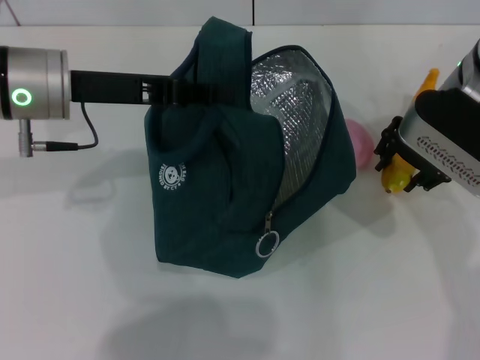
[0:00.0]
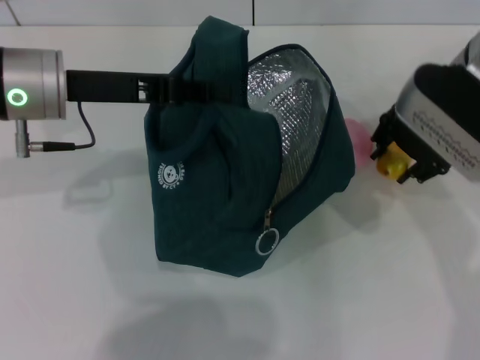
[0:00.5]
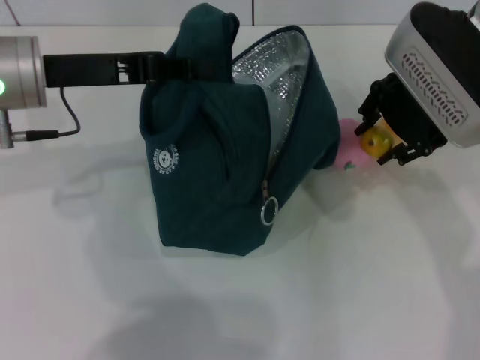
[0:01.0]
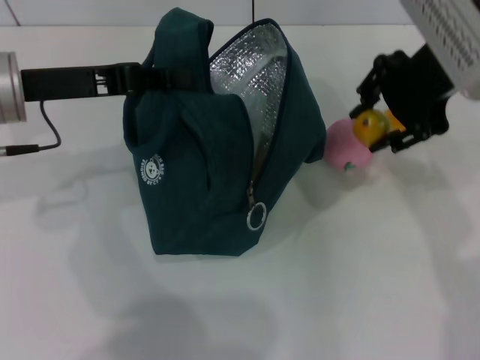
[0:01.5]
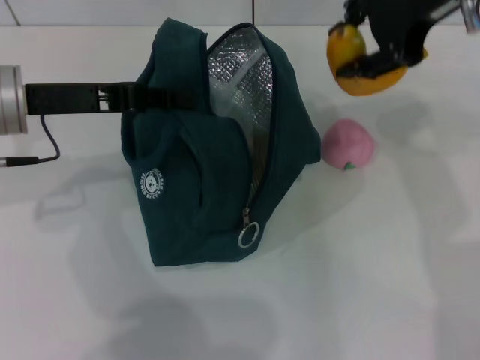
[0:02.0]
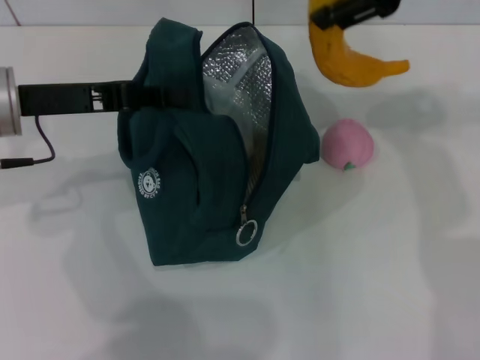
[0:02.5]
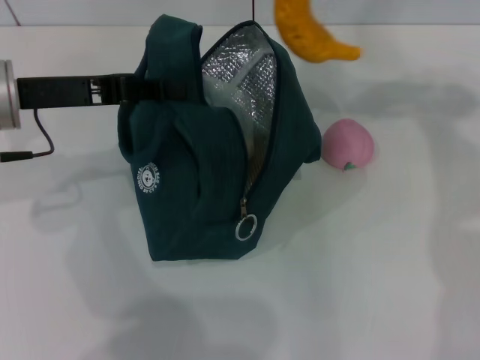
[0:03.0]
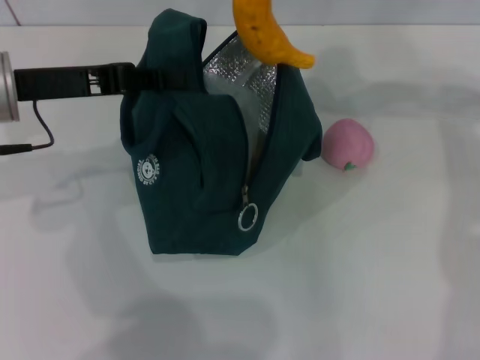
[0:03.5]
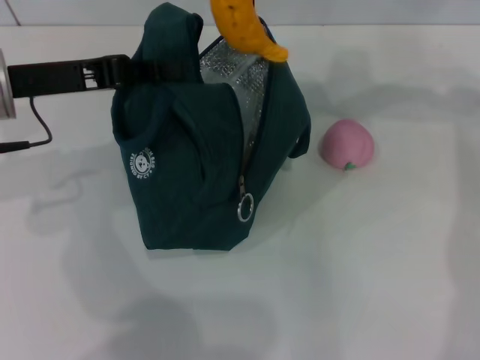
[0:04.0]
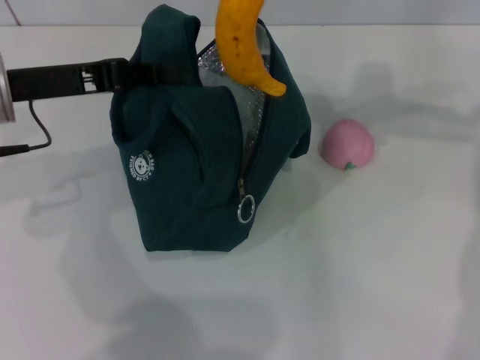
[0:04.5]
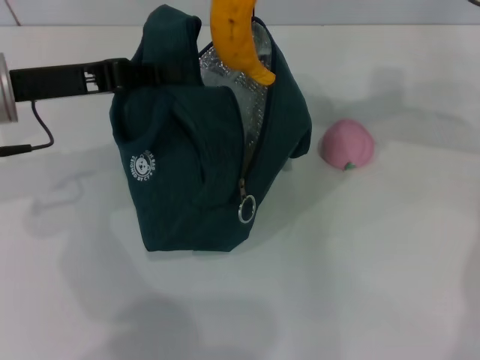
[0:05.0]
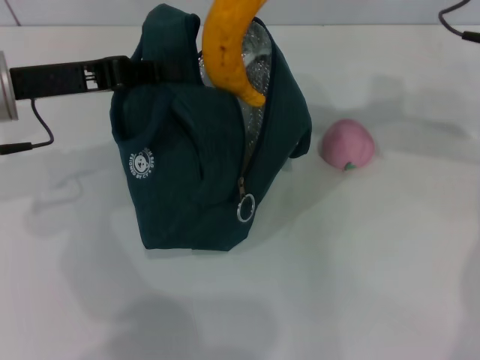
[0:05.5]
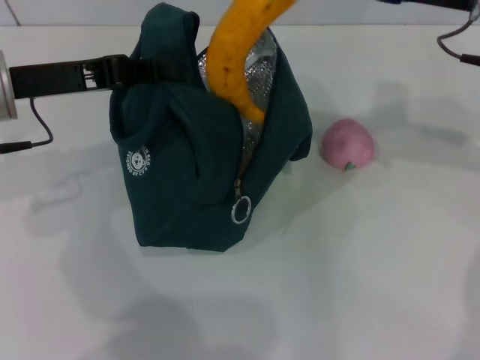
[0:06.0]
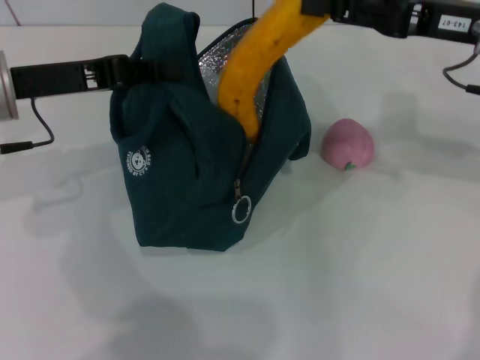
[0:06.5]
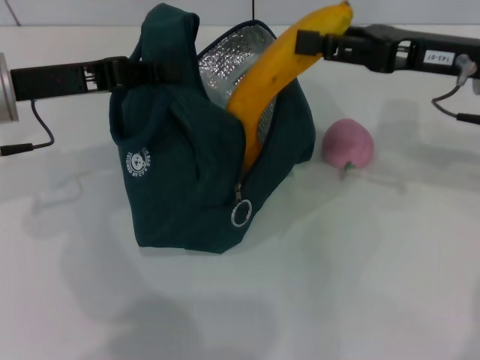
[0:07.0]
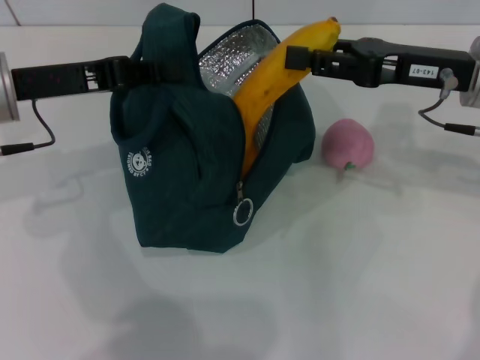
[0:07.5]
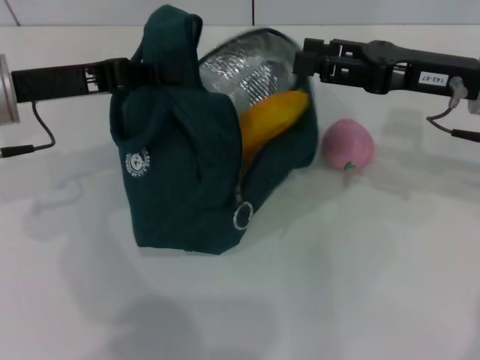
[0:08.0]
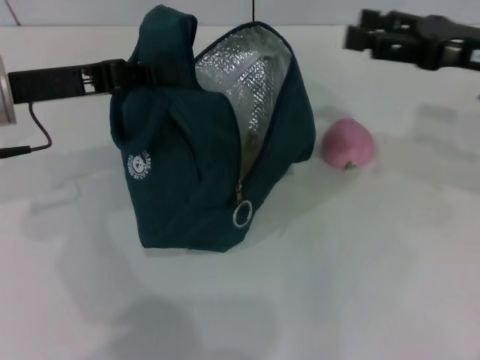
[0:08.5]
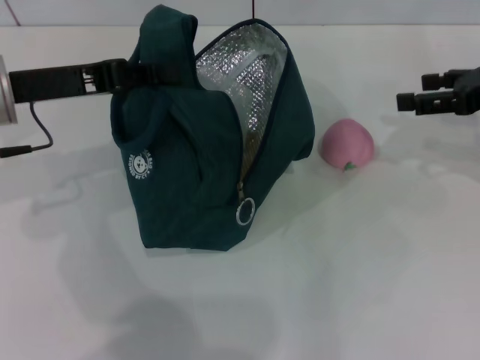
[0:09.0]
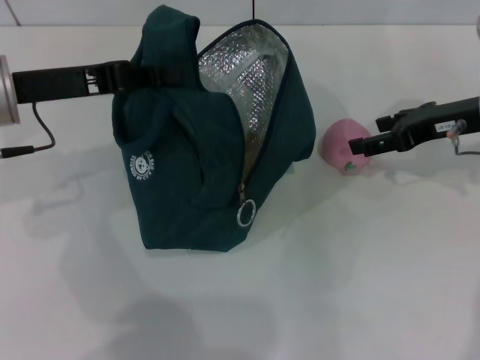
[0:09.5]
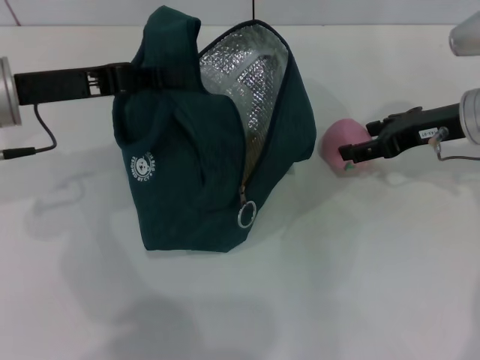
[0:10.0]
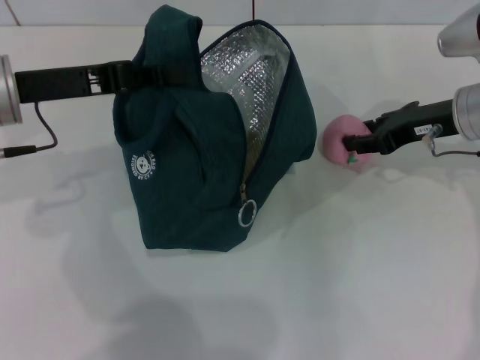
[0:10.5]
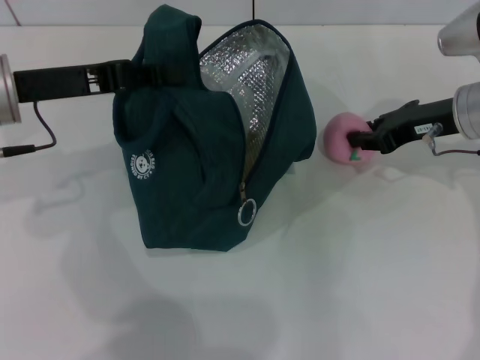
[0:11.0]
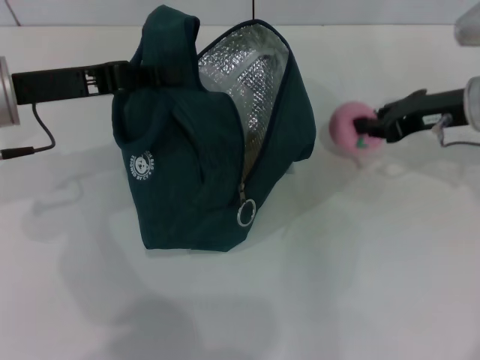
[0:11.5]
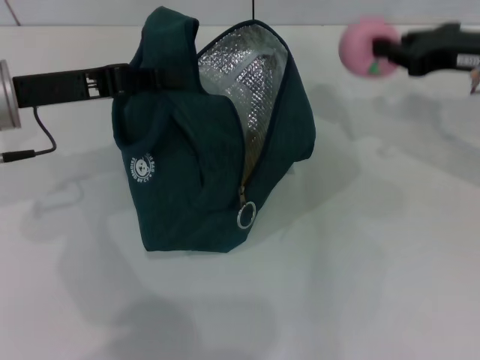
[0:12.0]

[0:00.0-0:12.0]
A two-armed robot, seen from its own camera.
Step, 0:00.0 to 0:08.0: Put the banana into the lunch bag with your right hand.
Step, 0:08.5 to 0:11.0: Grab the peach with your right hand.
0:00.0 to 0:02.0: The right gripper travels upward by about 15 cm.
0:04.0 to 0:06.0: The right gripper travels downward by approximately 10 cm.
0:06.0 to 0:08.0: The right gripper goes roughly 5 cm downward.
0:08.0 to 0:10.0: The right gripper goes to the right and returns, approximately 10 cm each way.
0:10.0 to 0:12.0: The right gripper heads upward, covering some 5 cm, and closes its fingers.

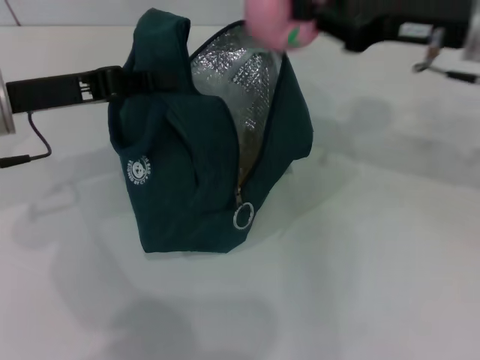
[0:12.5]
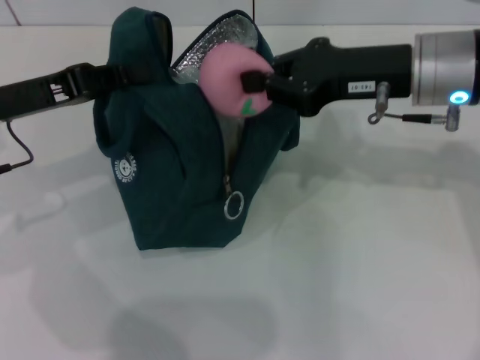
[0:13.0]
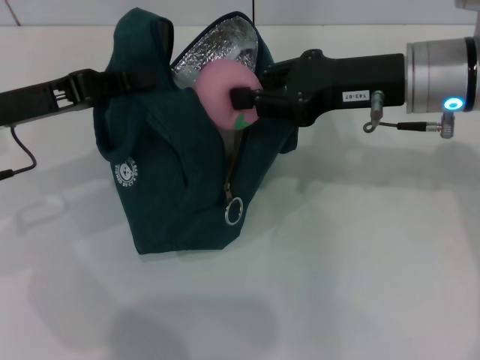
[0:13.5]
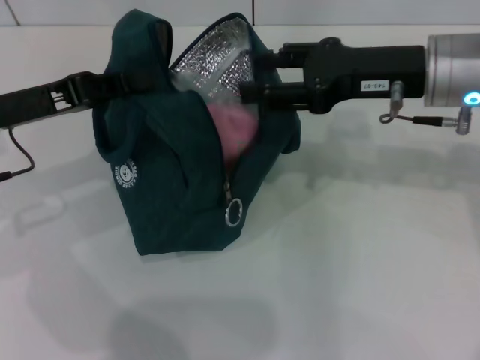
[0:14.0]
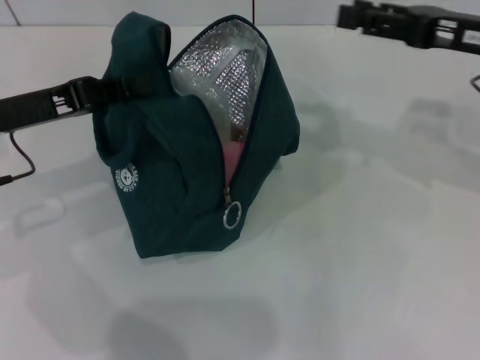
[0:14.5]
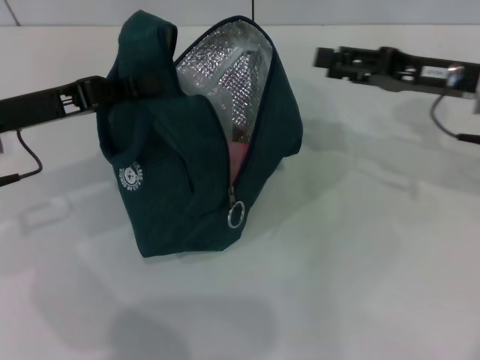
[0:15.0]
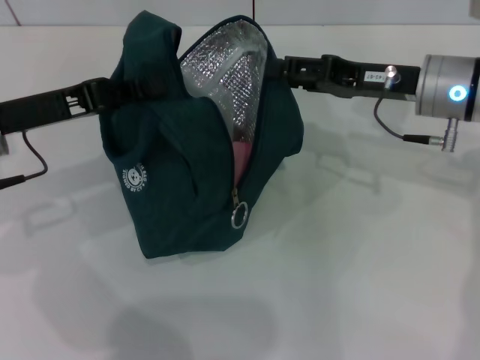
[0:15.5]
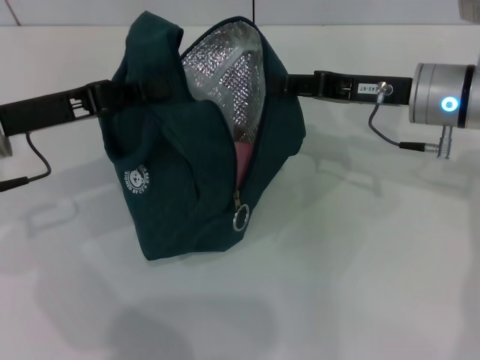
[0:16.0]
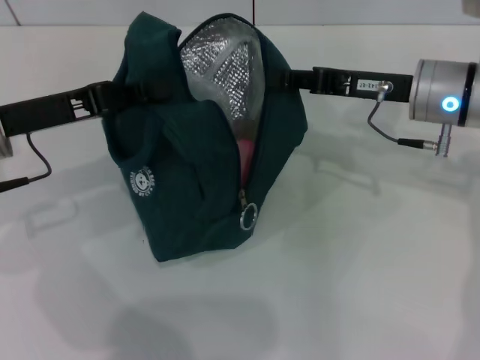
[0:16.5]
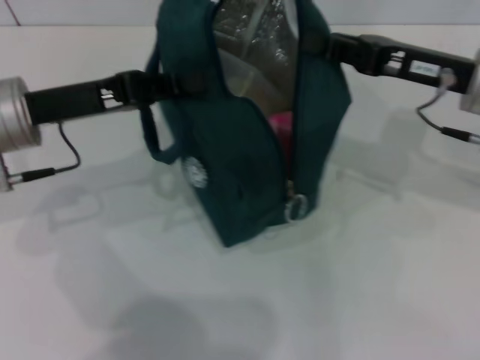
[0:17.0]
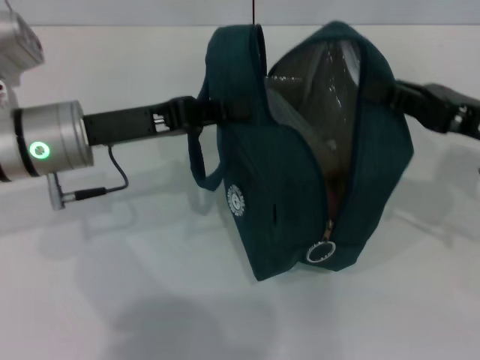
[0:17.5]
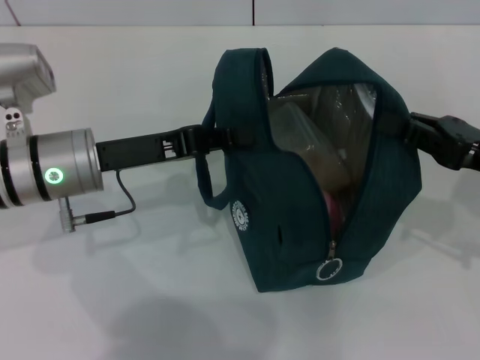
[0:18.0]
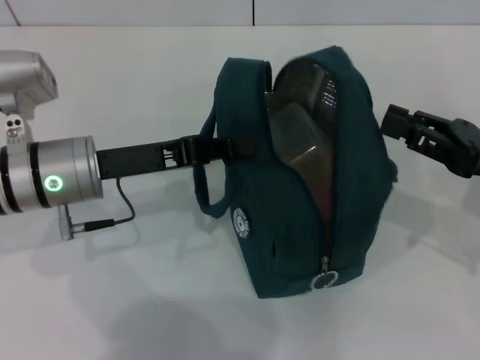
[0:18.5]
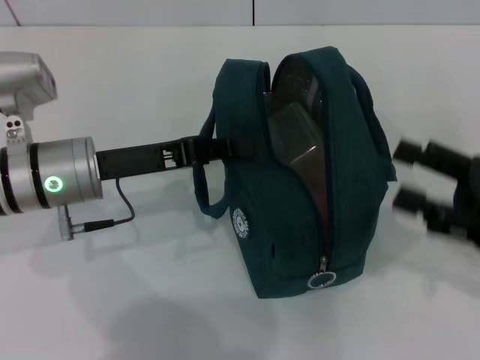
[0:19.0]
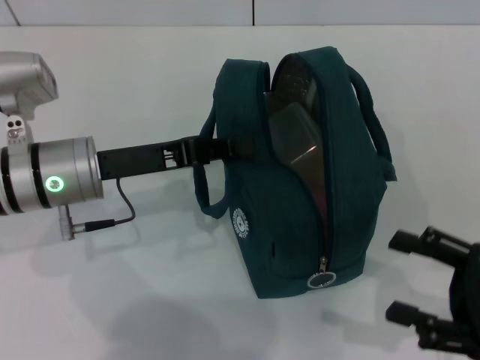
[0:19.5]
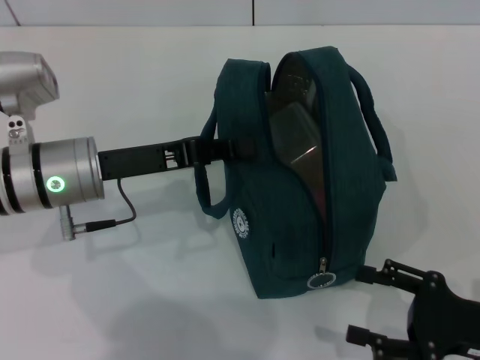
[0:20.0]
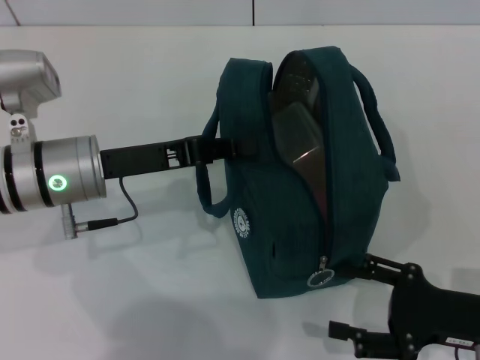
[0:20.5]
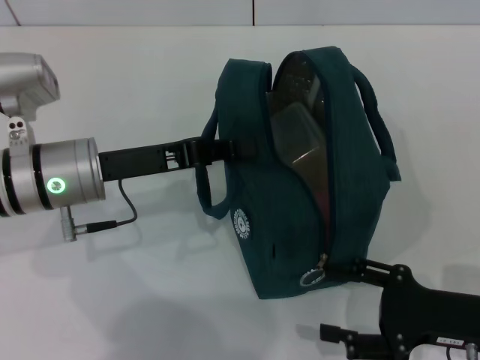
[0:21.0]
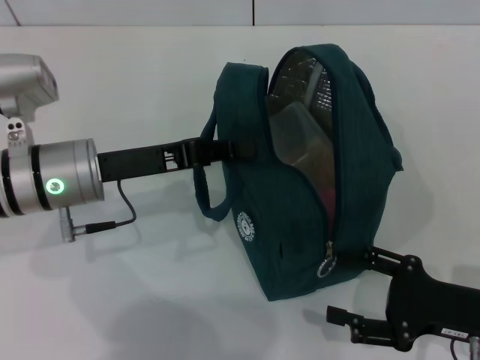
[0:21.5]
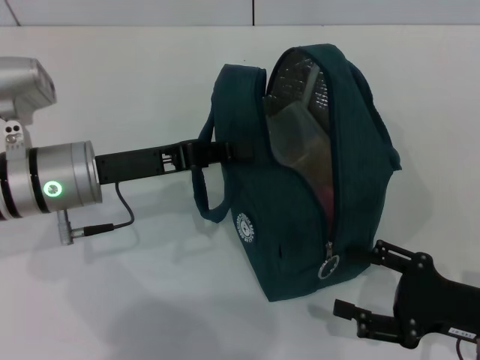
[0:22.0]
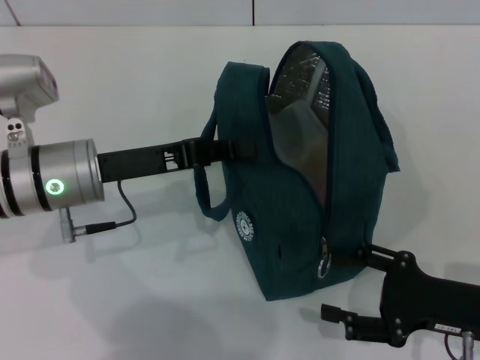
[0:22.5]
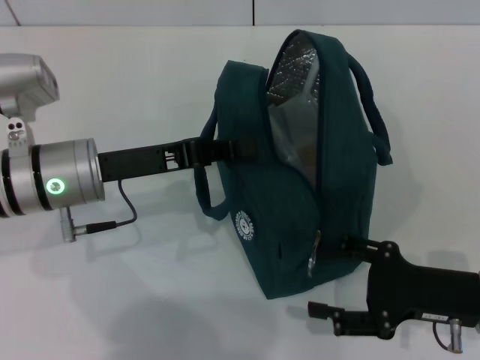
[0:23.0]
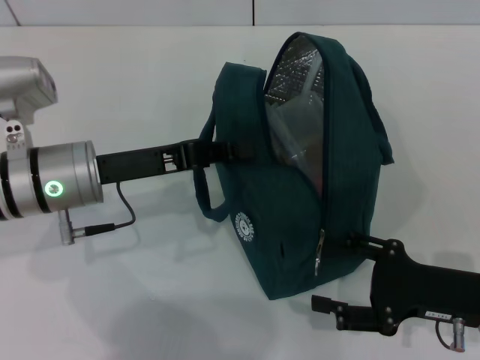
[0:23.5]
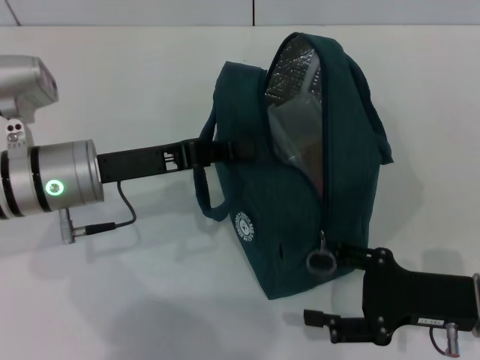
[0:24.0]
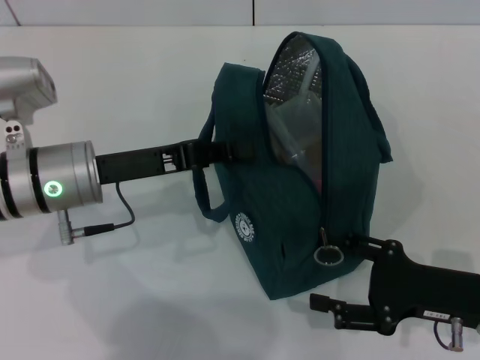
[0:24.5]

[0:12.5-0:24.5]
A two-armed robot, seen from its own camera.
Step, 0:12.5 to 0:14.0: Secure the lunch bag with your left hand.
Step, 0:14.5 to 0:18.5: Hold the lunch bag with your right hand.
0:12.5 to 0:14.5: The right gripper moves roughly 5 cm, and opens.
0:14.5 to 0:16.5: The right gripper shifts some 10 cm to the left and downward, and closes up.
0:16.5 to 0:18.5: The left gripper shifts approximately 5 cm to the right; the right gripper shifts some 15 cm backward and to the right.
0:18.5 to 0:20.5: The right gripper heads downward and backward, covering some 10 cm, and opens.
0:20.5 to 0:24.5: The grippers make only small movements.

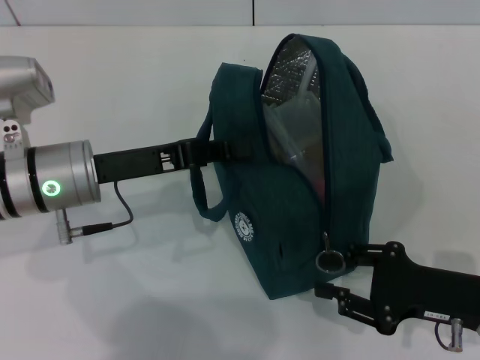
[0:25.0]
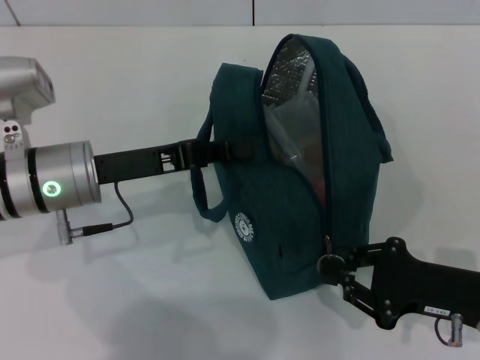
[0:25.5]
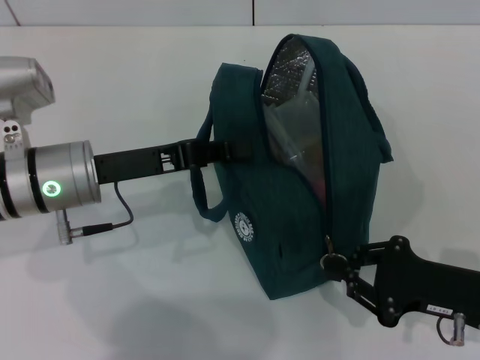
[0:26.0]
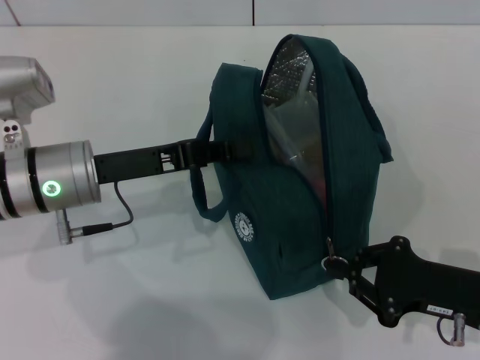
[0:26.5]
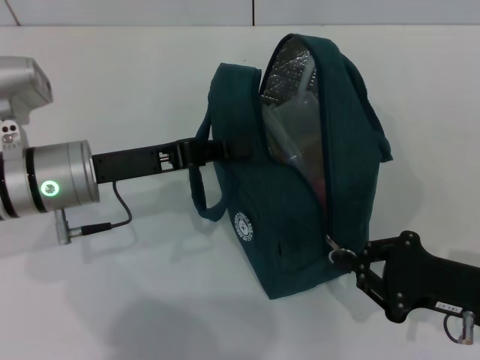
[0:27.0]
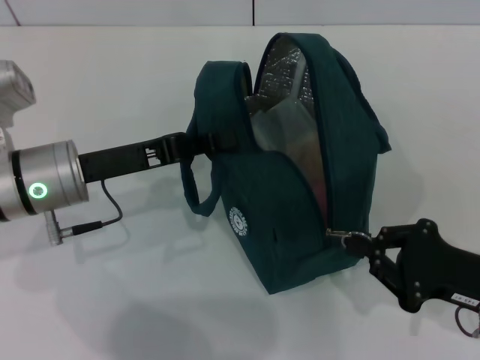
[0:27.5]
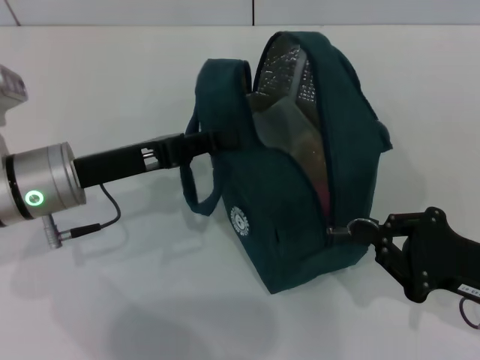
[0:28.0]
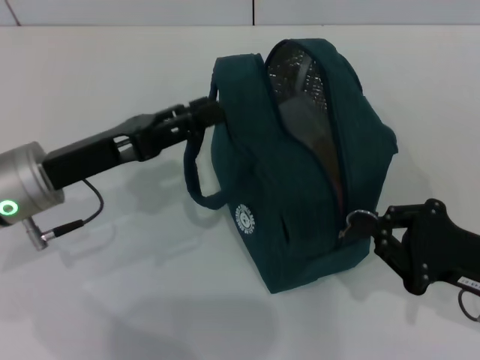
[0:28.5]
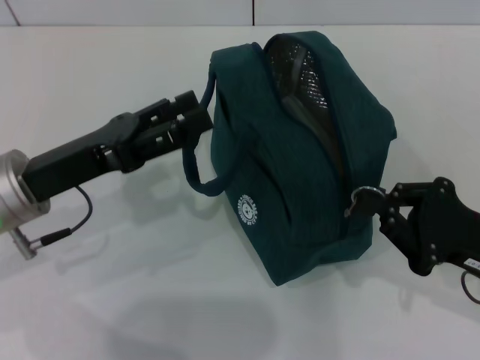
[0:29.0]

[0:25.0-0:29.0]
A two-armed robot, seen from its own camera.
Step, 0:25.0 to 0:28.0: Hold the lunch bag with your left hand.
0:25.0 to 0:27.0: The right gripper closes its fingers.
0:27.0 to 0:29.0: The left gripper shifts by approximately 5 cm, and opens up.
